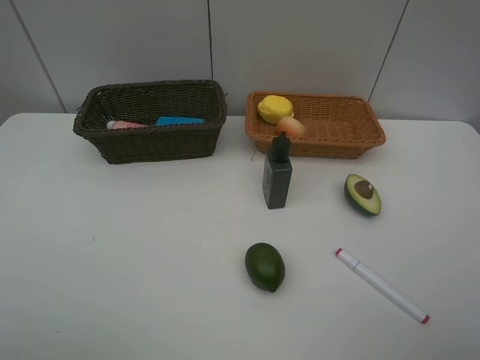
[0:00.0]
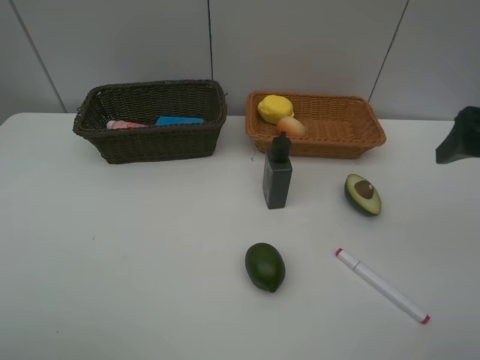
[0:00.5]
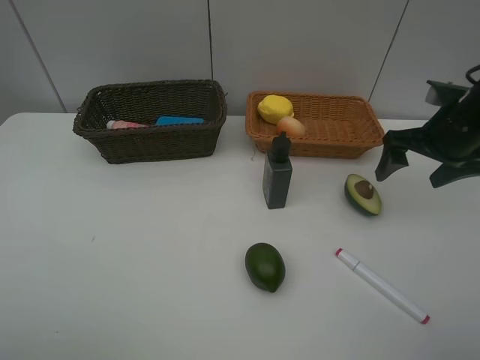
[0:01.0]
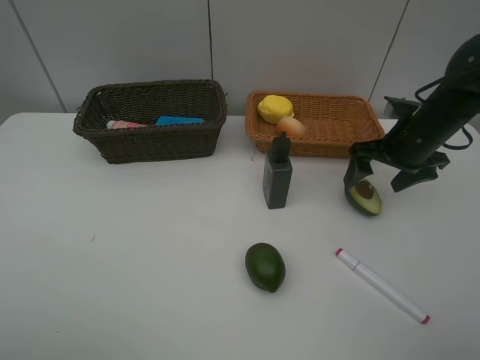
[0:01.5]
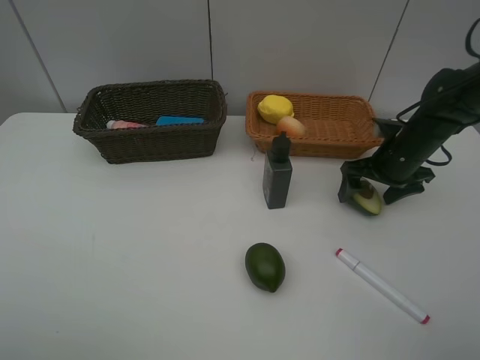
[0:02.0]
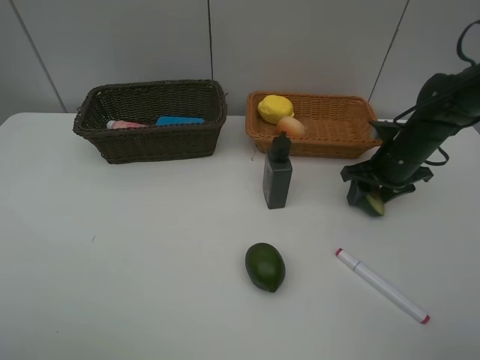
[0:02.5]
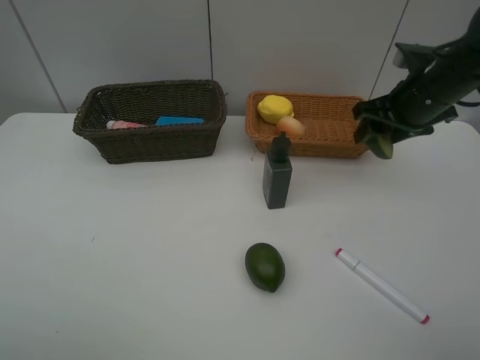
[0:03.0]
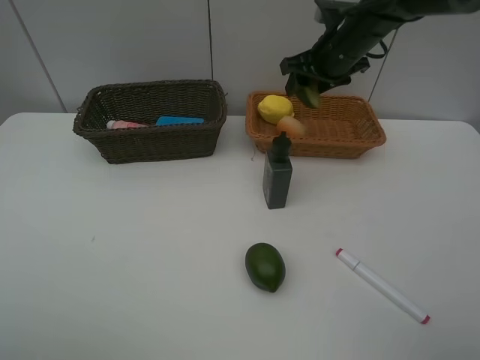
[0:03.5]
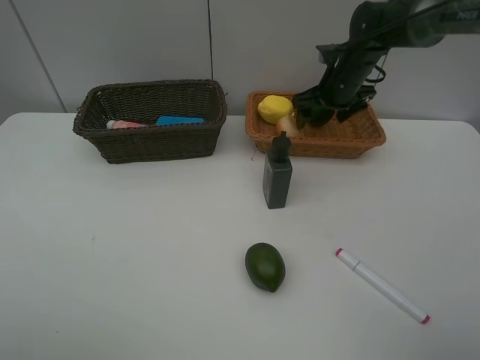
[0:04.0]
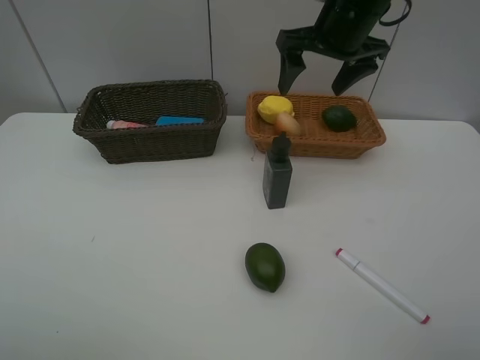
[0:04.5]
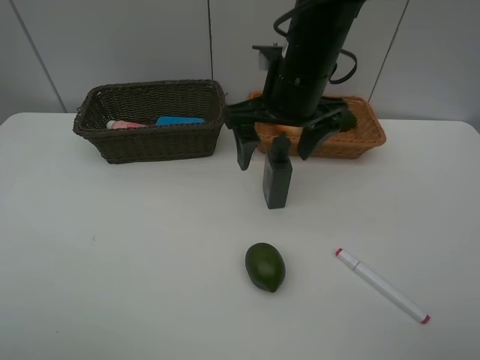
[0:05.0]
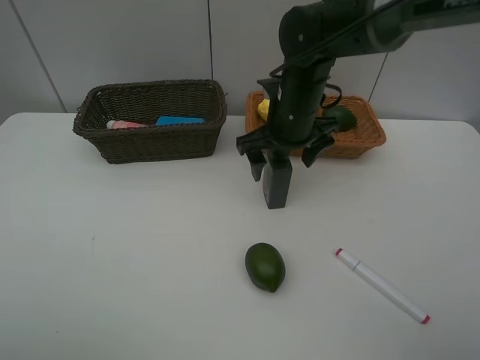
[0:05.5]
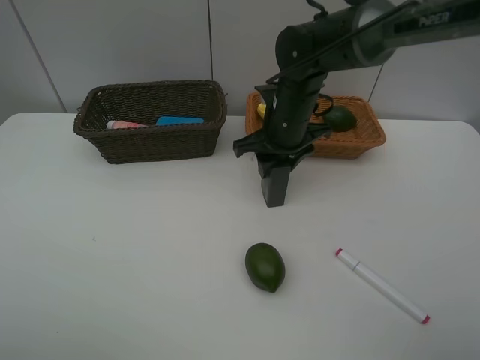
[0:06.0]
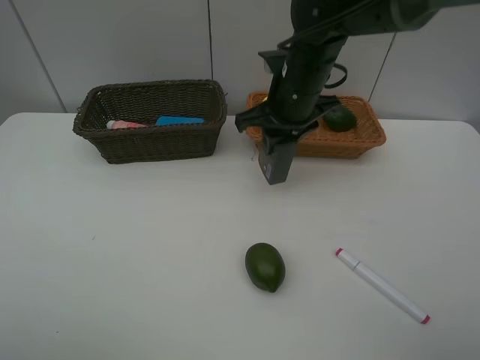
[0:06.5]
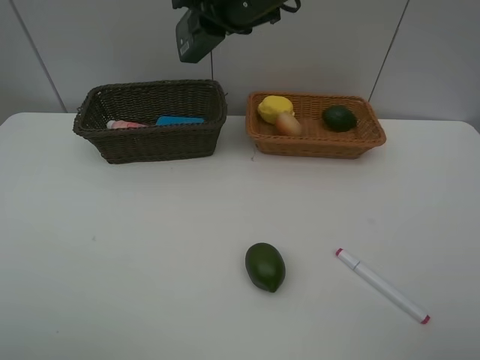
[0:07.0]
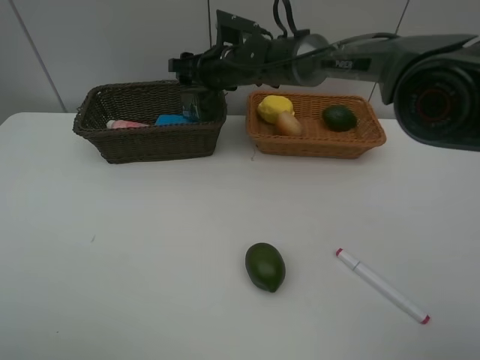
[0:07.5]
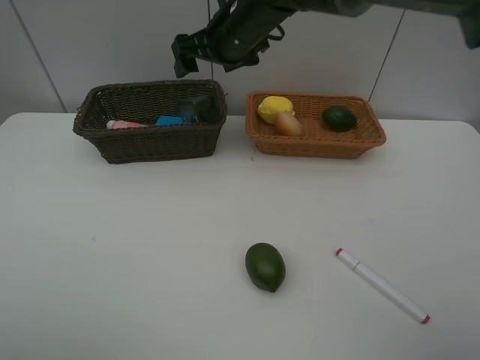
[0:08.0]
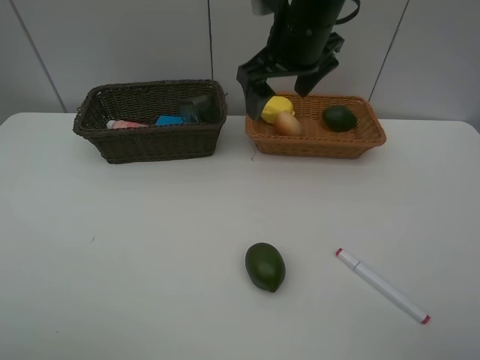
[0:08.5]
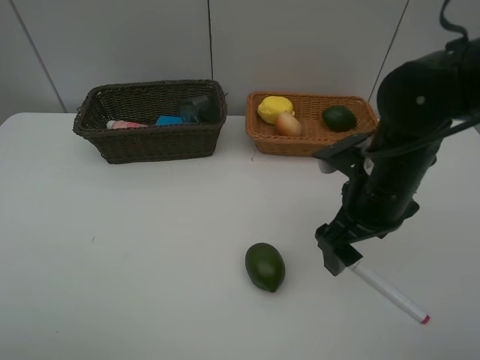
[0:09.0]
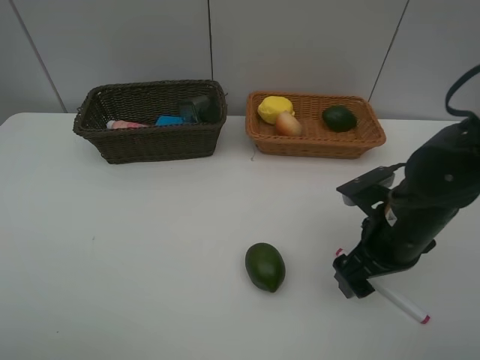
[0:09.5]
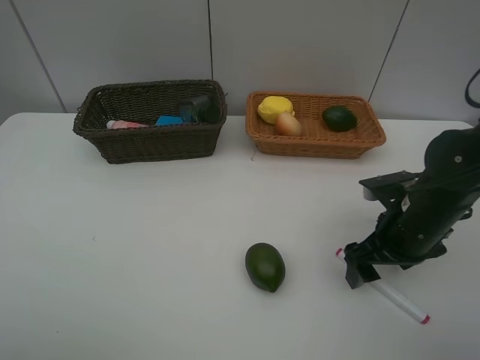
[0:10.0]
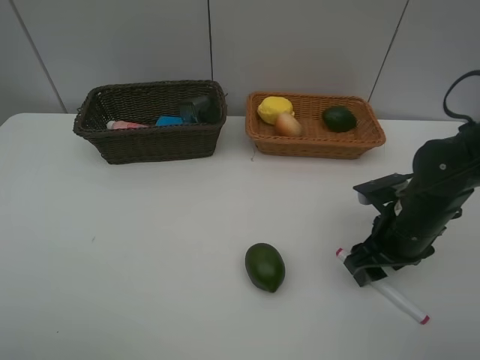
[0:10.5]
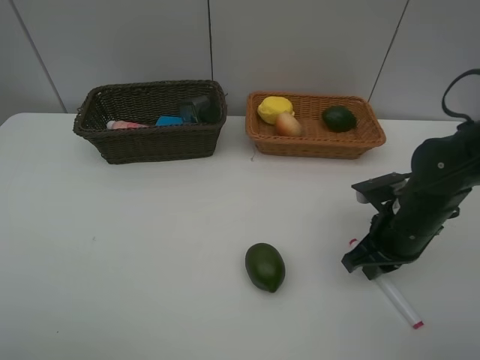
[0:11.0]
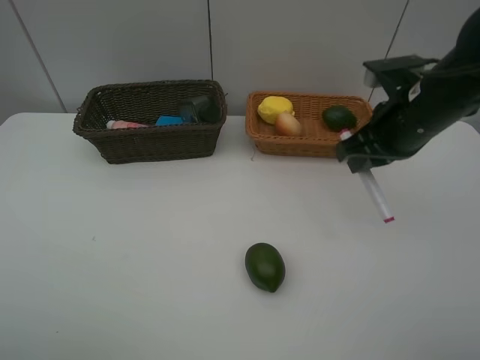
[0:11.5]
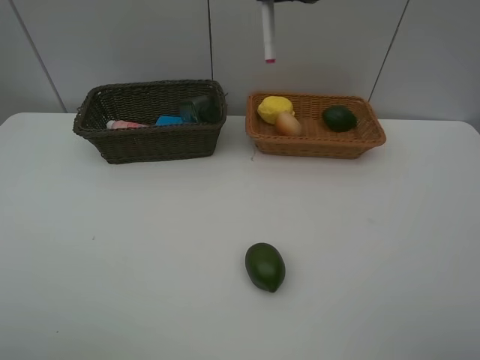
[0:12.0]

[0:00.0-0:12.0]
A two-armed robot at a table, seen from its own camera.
Task of the whole recording: Place multiple objects separately in different baskets.
Step, 0:00.0 to 0:02.5: Pick up the avocado with right gripper.
Step, 0:03.0 to 0:04.0: Place the avocado in the light basket with right gripper.
Step, 0:04.5 to 0:06.5: Pick up the hard facial cleanser with right gripper.
Step, 0:07.0 to 0:07.5: Place the hard facial cleanser in the dark basket with right gripper.
Step, 0:08.0 to 0:11.0: Pick up the red marker with right gripper.
0:00.0 to 0:02.0: The right gripper shifts roughly 35 cm forward and downward.
0:02.0 to 0:04.0: The right gripper is displaced forward, to the left and upward by about 15 cm, and closes, then opens again.
0:04.0 to 0:06.0: The right gripper is displaced backward and to the left by roughly 15 cm, and closes.
0:06.0 to 0:08.0: The right gripper goes up and down, approximately 15 cm each way, reversing 2 times, and opens.
0:08.0 to 0:10.0: The right gripper shifts about 35 cm to the right, backward and downward.
0:10.0 to 0:12.0: The right gripper moves upward, forward and to the left, about 30 cm, and closes its fingers.

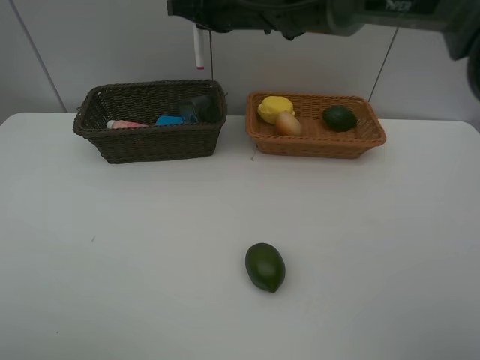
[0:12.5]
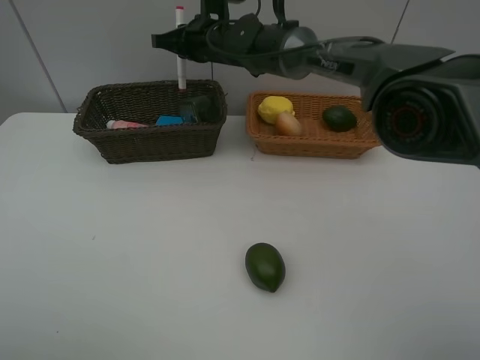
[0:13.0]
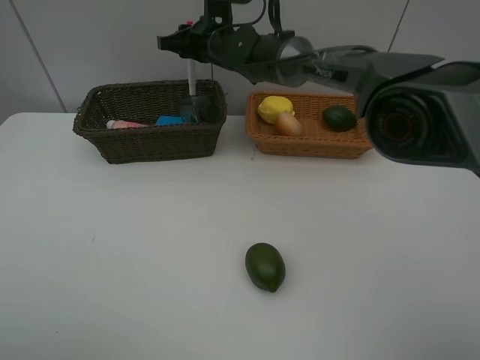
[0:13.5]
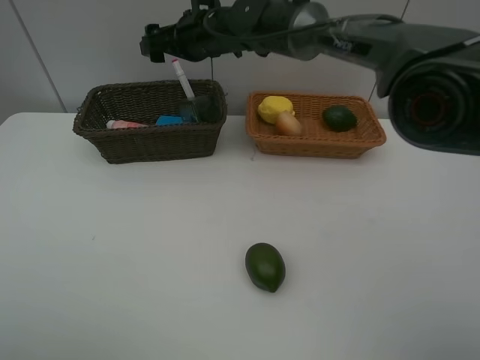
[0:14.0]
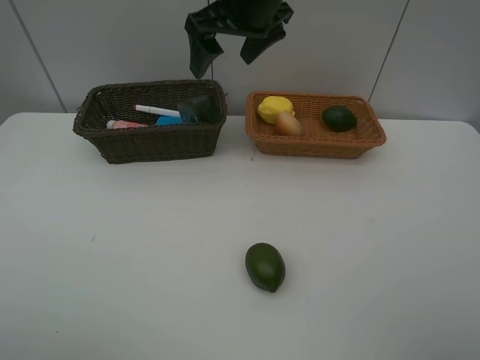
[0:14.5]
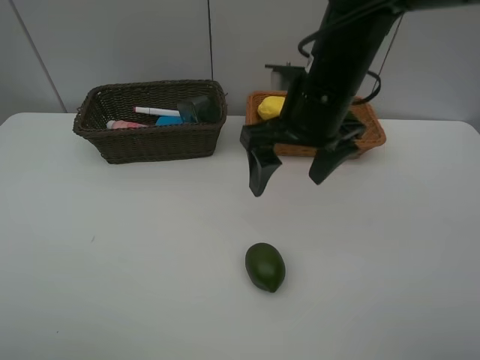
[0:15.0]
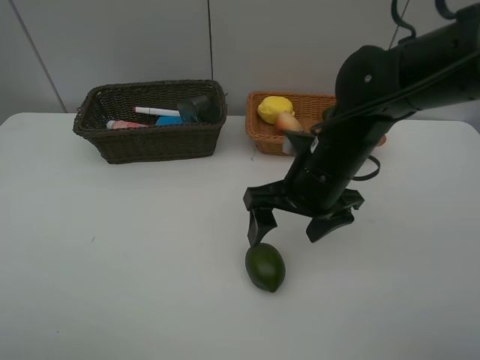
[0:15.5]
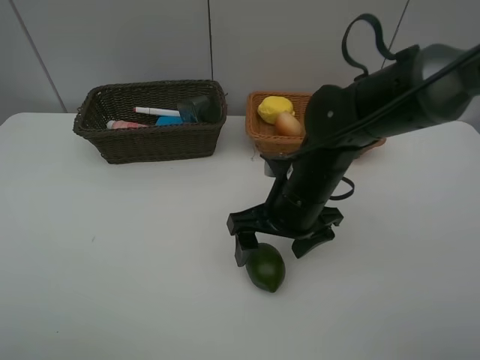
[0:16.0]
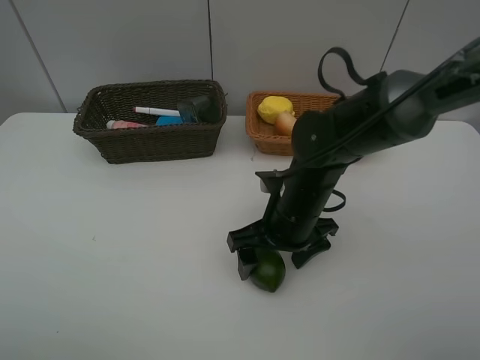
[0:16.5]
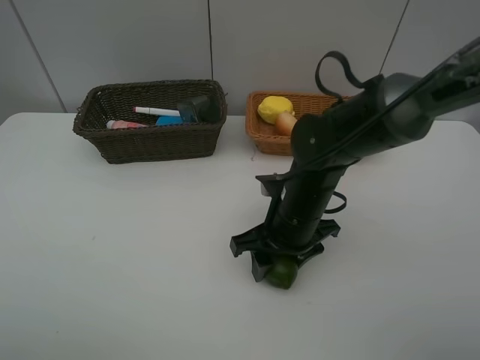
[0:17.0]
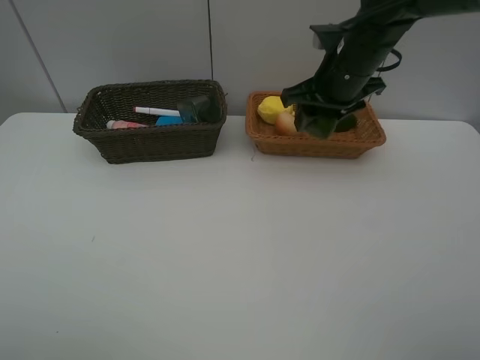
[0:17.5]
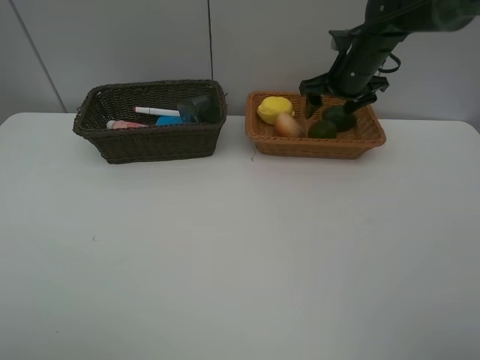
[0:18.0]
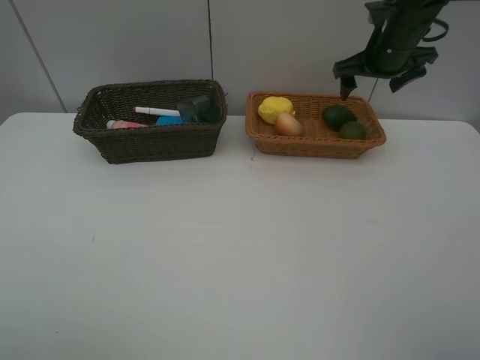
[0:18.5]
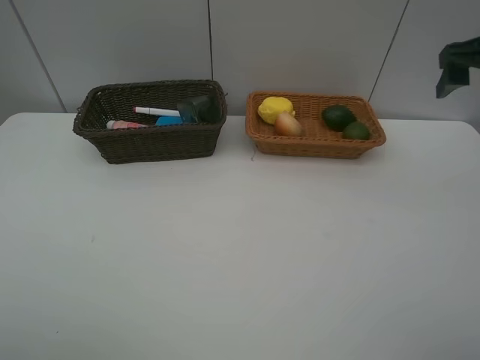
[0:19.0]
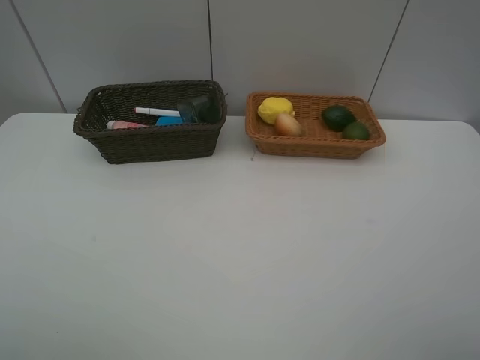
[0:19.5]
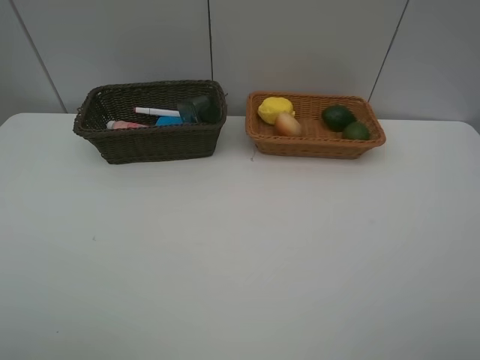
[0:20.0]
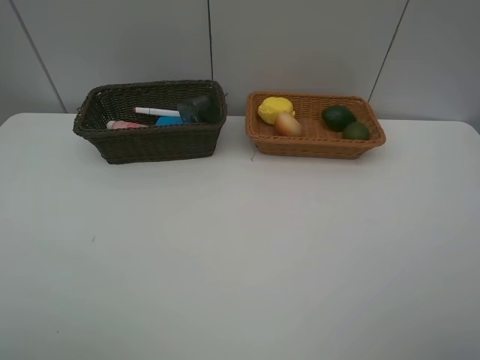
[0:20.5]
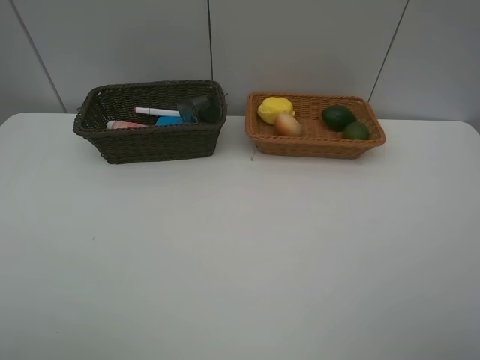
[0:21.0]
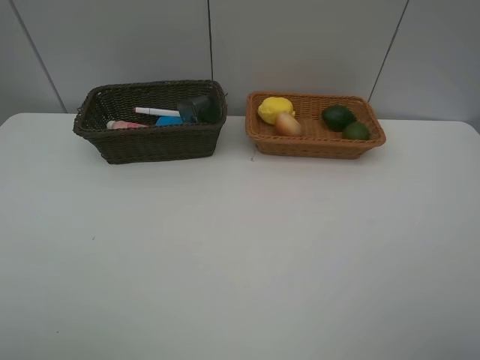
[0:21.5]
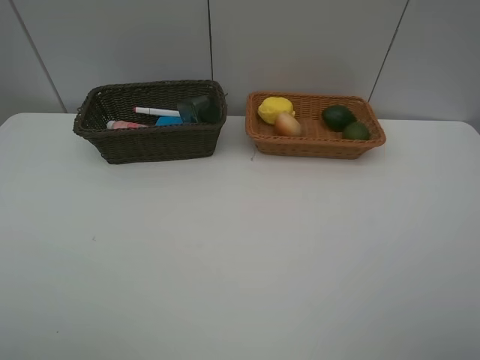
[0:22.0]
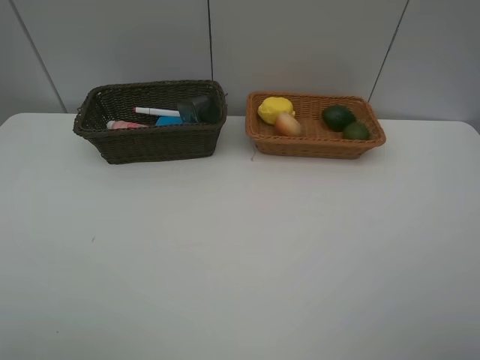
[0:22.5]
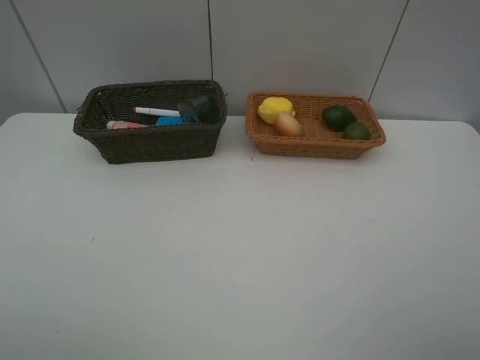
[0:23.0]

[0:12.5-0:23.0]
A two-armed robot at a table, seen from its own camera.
Task of the whole recording: Place multiple objects separately in different baskets.
Step, 0:12.5 to 0:14.0: Place the red marker in the dark basket with right gripper.
Step, 0:14.5 to 0:17.0: Pick up the lime with right gripper.
Step, 0:17.5 to 0:18.0: Place the lime in the light basket with right gripper.
0:12.5 to 0:14.5: The right gripper is displaced backward and upward by roughly 10 cm, and opens up.
0:14.5 to 0:16.5: The right gripper moves downward and backward, roughly 25 cm.
0:16.5 to 0:19.0: The right gripper is displaced to the right and upward by some 30 cm, and closes, then opens again.
0:19.0 to 0:21.0: The right gripper moves backward, approximately 30 cm.
0:21.0 to 0:23.0: Both grippers stay put.
